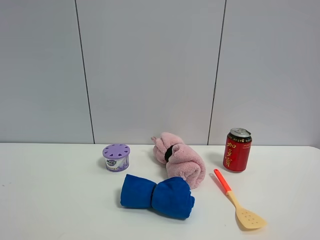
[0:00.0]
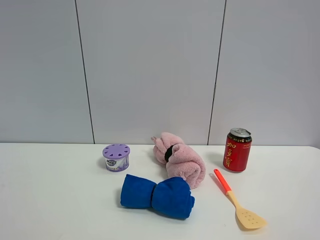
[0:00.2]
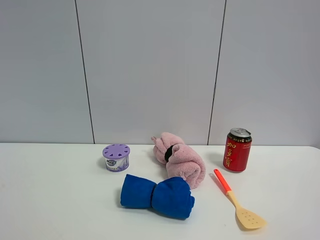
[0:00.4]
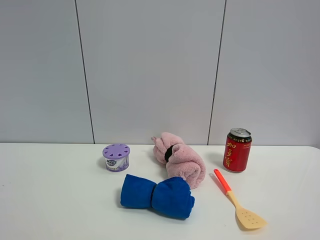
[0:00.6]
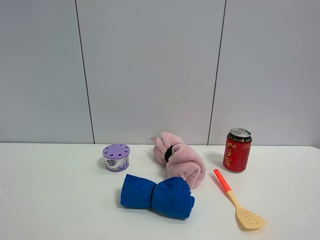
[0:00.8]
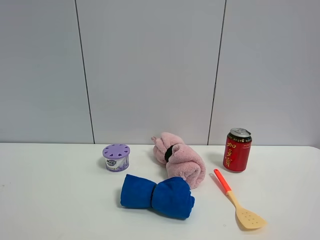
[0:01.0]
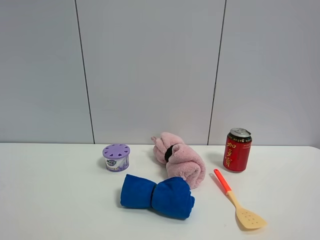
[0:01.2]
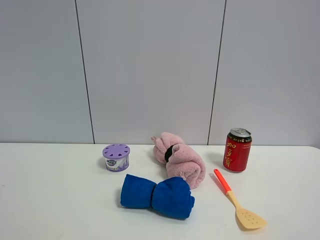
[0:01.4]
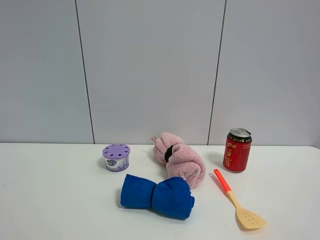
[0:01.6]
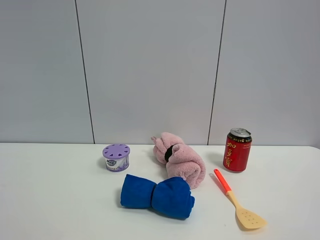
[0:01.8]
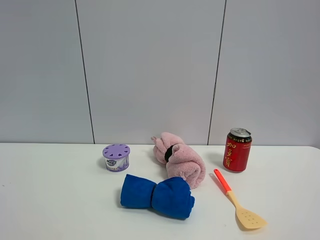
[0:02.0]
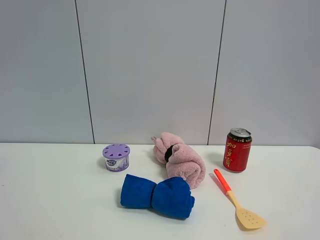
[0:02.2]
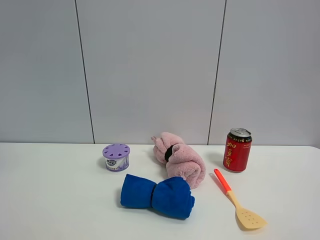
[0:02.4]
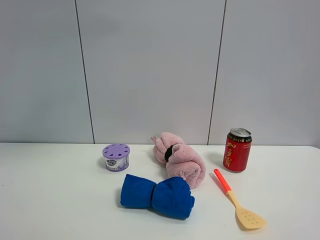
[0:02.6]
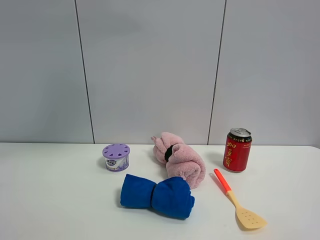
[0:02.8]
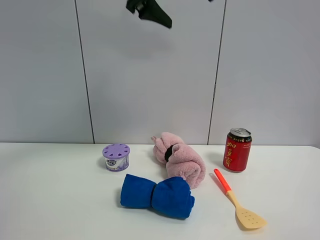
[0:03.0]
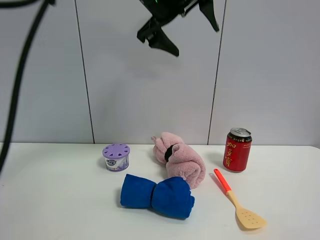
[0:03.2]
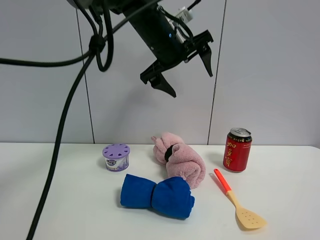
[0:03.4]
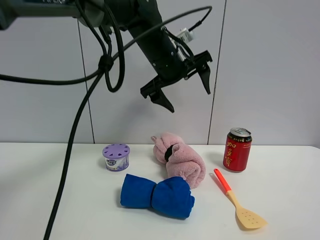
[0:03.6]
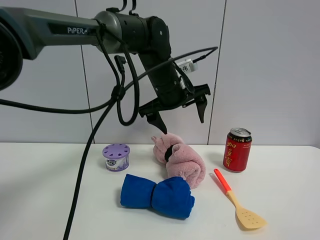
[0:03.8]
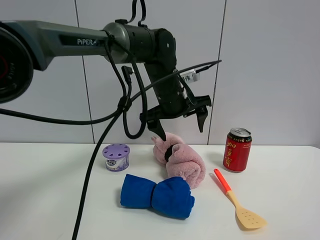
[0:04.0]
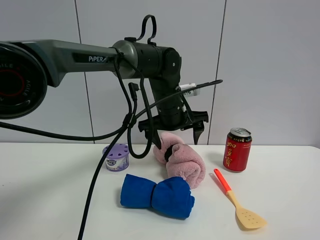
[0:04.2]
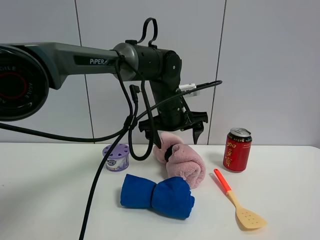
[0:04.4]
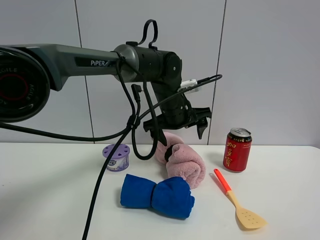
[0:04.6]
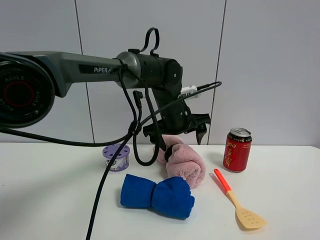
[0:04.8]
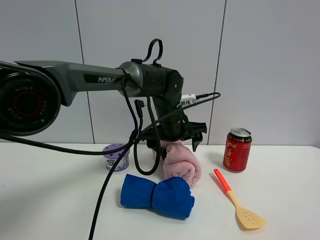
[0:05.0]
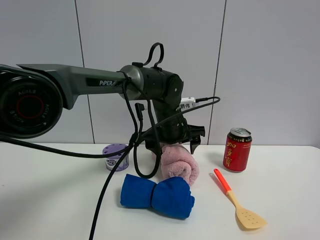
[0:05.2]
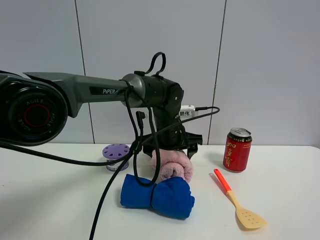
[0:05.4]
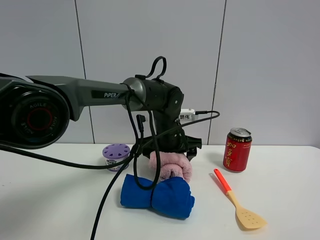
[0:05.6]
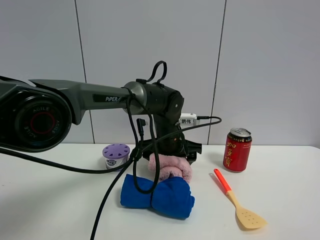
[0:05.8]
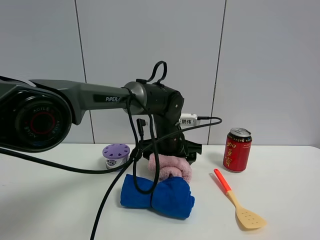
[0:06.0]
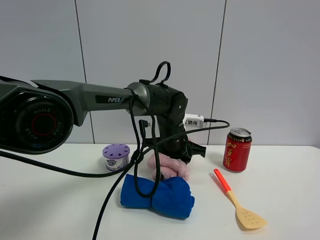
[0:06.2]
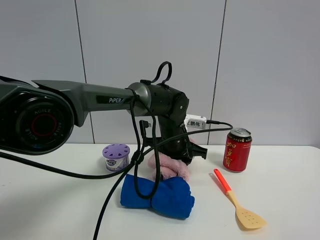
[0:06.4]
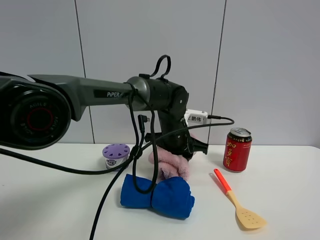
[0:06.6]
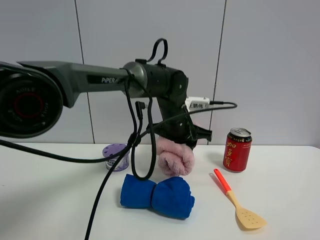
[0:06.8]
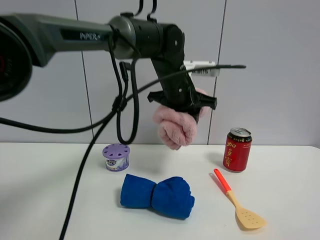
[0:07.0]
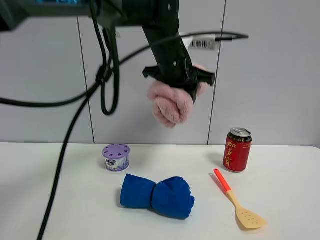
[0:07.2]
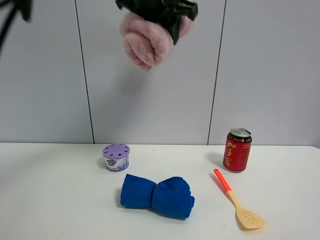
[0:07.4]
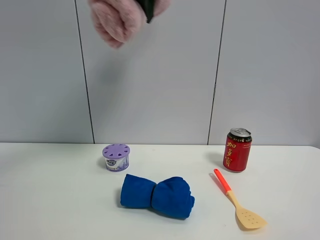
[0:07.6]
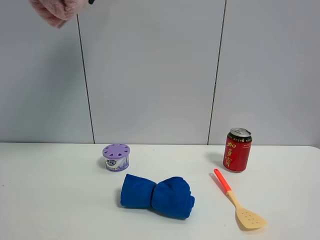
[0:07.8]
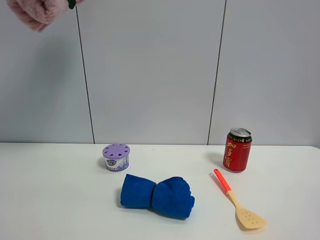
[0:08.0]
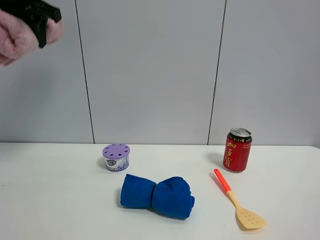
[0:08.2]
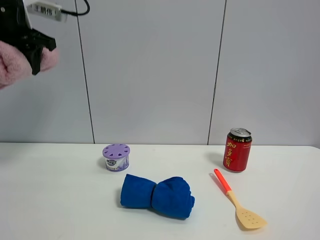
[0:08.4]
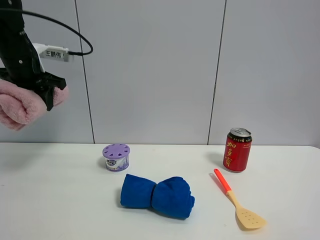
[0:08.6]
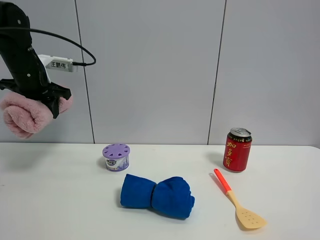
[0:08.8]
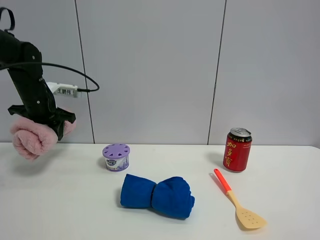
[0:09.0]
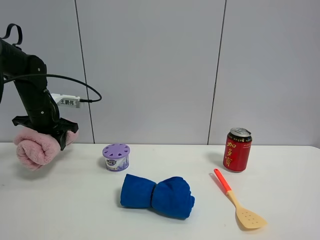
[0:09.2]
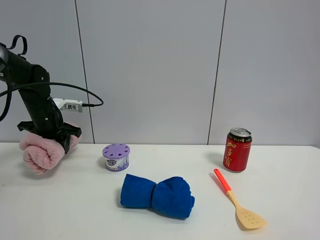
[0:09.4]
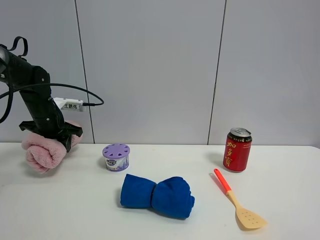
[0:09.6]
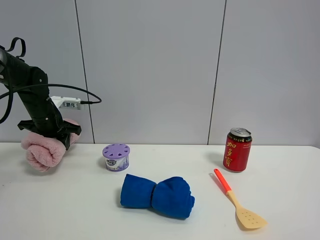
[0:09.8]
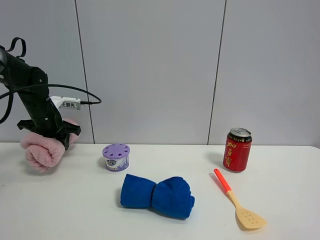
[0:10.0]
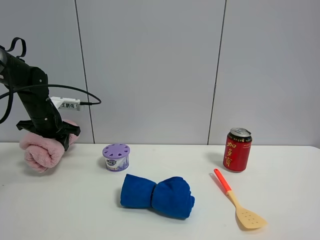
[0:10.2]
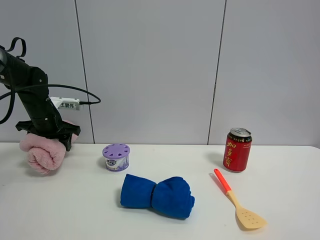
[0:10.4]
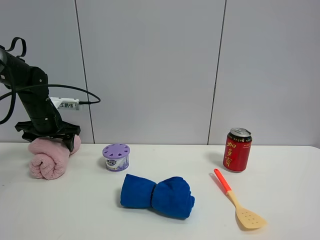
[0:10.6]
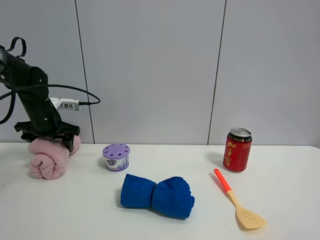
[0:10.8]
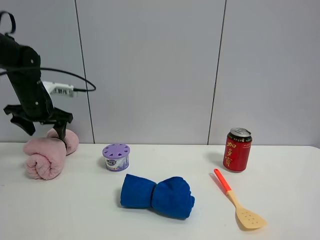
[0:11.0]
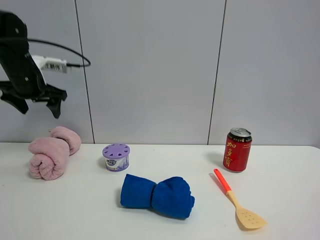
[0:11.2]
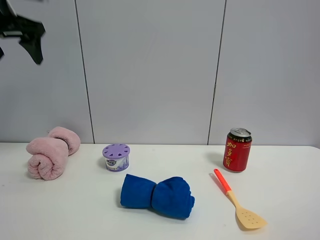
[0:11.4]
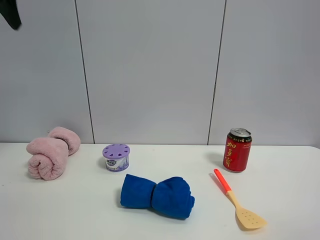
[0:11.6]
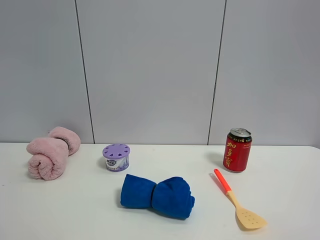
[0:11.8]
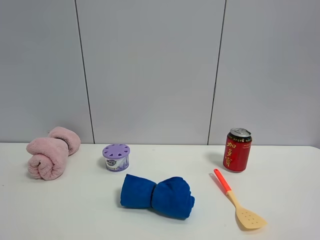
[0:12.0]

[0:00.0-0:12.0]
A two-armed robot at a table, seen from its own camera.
Task of the whole recording: the gripper move the object.
Step, 0:00.0 to 0:06.2: Grasp the pink towel with the left gripper.
Step, 0:06.4 to 0:11.0: Place the pink towel on the table with the left gripper.
0:01.6 to 0:03.0: The left gripper travels forward and to the right by roughly 50 cm.
0:03.0 to 0:04.4: The left gripper heads downward, covering some 25 cm.
0:04.4 to 0:06.0: The left gripper moves downward, approximately 5 cm.
0:06.0 to 0:07.6: The left gripper travels upward by some 35 cm, and closes its fingers.
0:07.6 to 0:09.0: The left gripper is displaced downward and to the left by some 35 cm.
0:09.0 to 0:10.4: The left gripper opens its fingers.
0:10.4 to 0:12.0: The left gripper goes approximately 50 cm upward and backward.

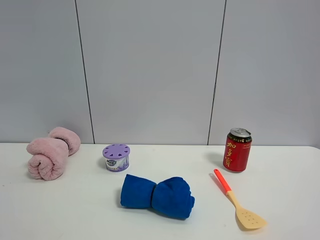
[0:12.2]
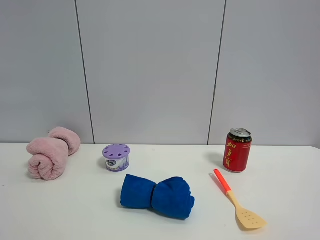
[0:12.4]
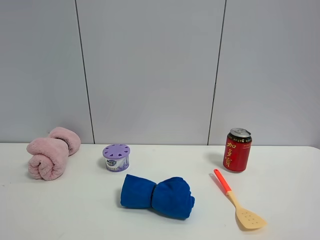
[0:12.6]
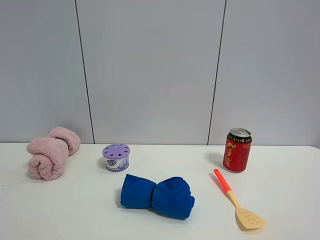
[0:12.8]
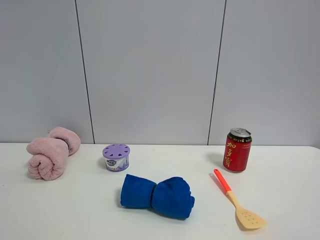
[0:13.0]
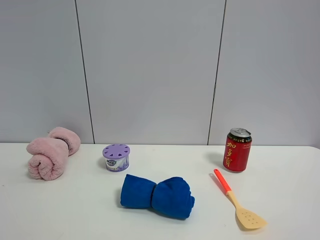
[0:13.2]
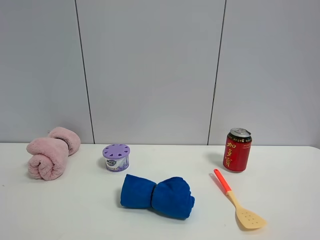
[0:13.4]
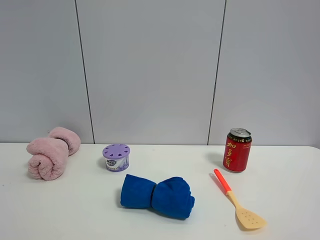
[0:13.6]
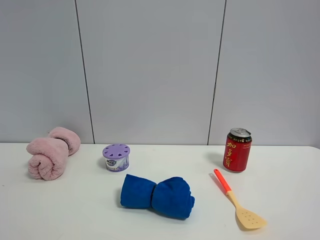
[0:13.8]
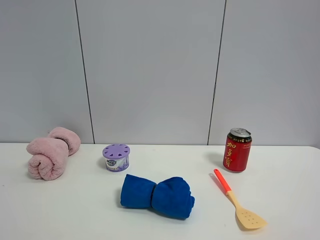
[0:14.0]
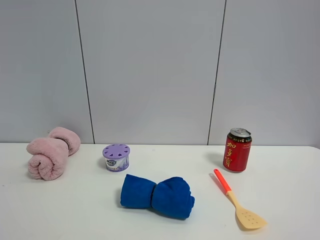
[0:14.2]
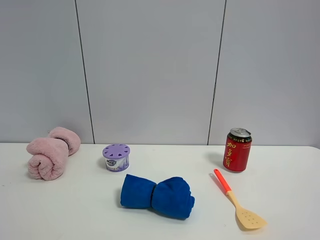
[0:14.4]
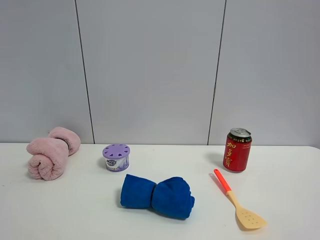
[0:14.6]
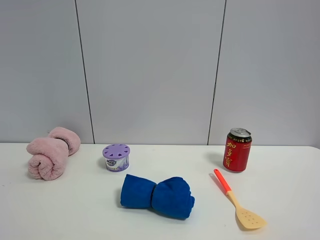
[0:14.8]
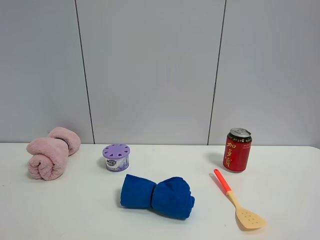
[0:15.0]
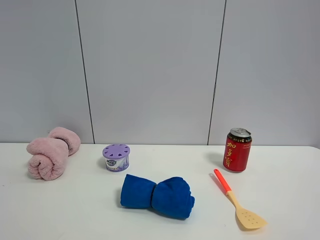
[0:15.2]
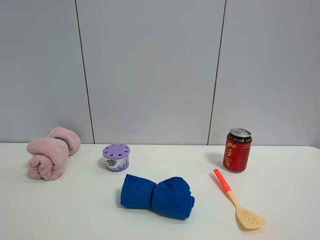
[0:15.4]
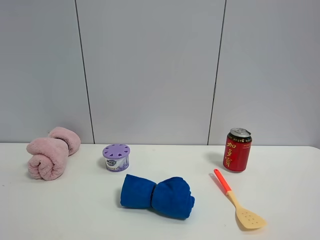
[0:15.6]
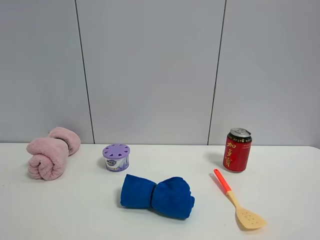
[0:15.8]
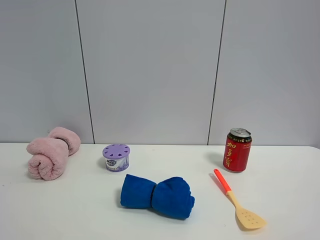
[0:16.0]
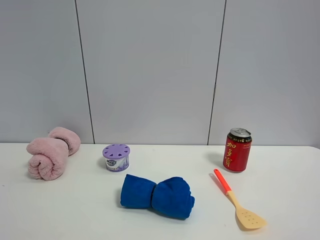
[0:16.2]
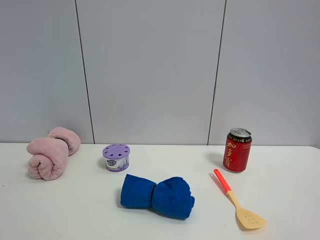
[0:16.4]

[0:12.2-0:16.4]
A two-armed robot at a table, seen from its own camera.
Task of the whole recording: the gripper move the object.
0:13.6 to 0:16.4: Both grippers stay put.

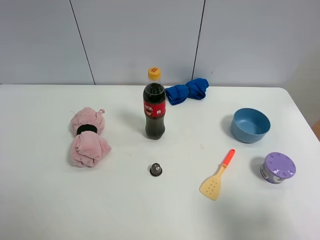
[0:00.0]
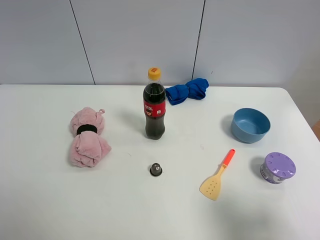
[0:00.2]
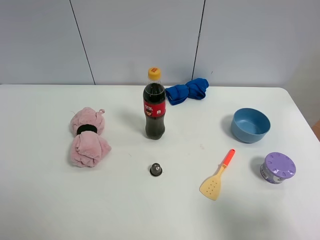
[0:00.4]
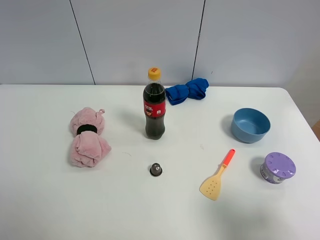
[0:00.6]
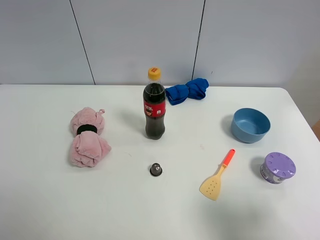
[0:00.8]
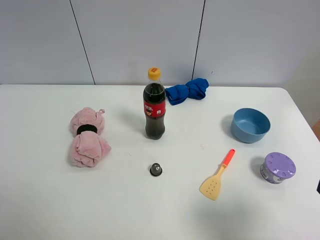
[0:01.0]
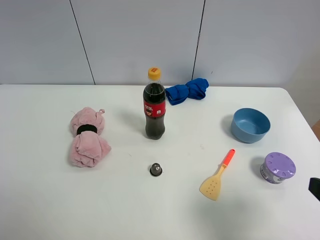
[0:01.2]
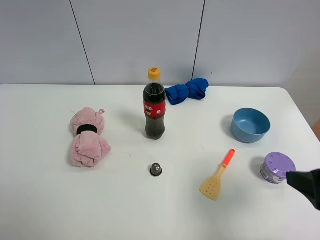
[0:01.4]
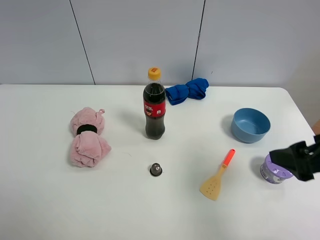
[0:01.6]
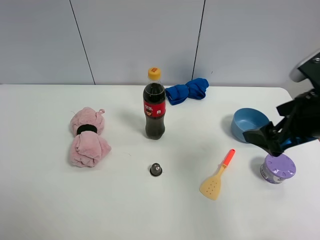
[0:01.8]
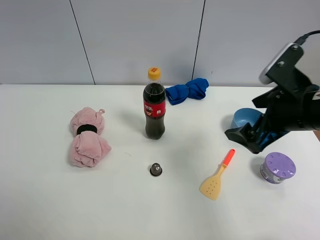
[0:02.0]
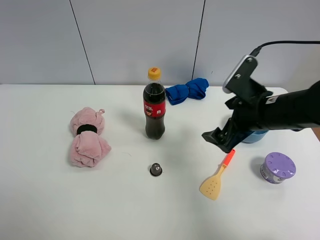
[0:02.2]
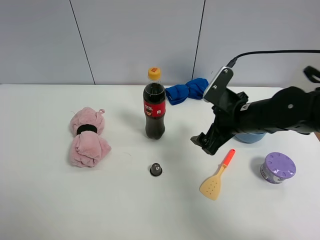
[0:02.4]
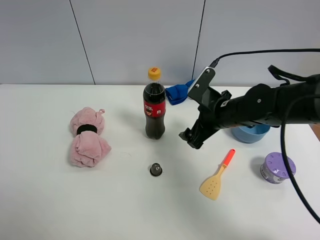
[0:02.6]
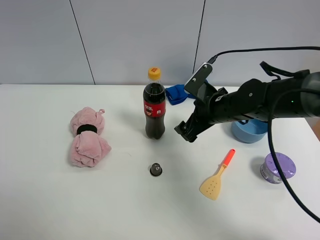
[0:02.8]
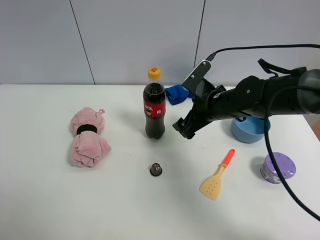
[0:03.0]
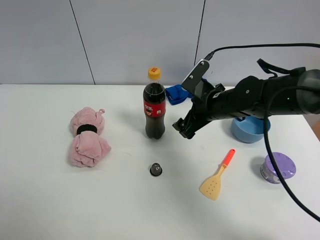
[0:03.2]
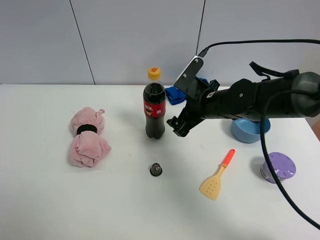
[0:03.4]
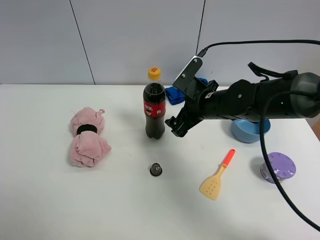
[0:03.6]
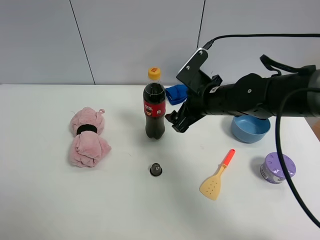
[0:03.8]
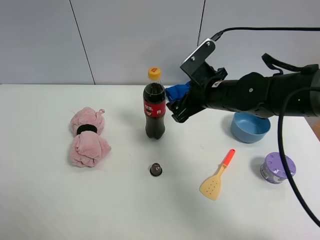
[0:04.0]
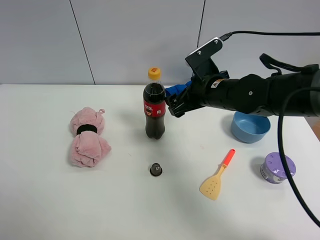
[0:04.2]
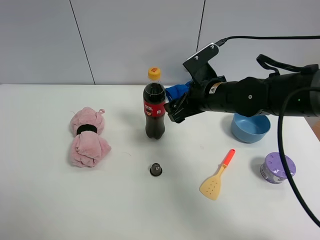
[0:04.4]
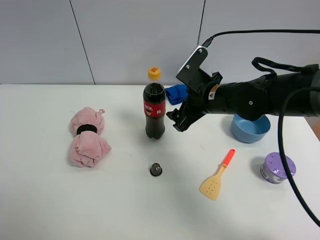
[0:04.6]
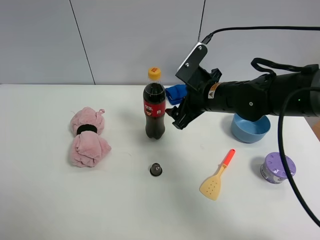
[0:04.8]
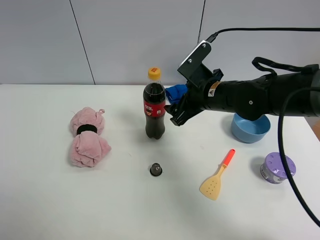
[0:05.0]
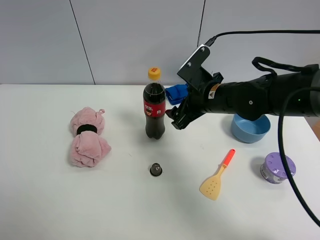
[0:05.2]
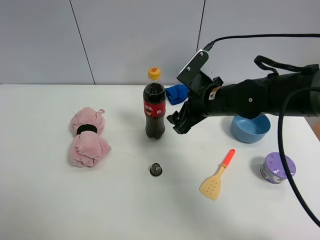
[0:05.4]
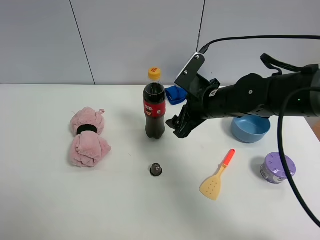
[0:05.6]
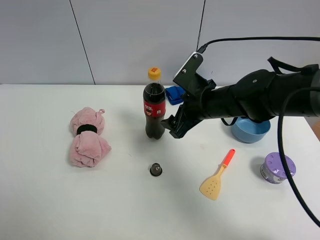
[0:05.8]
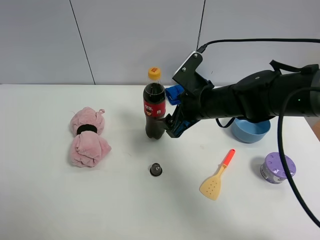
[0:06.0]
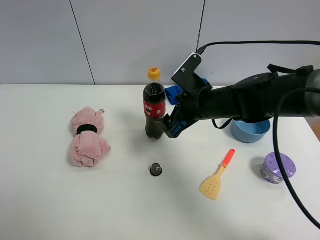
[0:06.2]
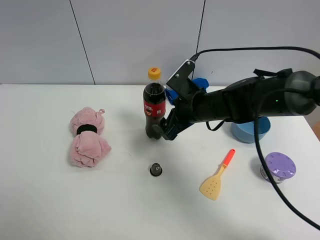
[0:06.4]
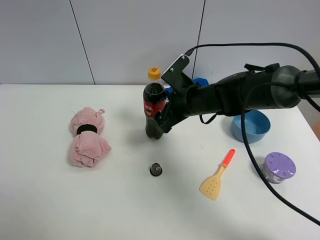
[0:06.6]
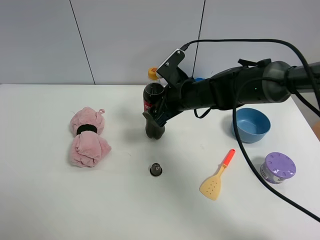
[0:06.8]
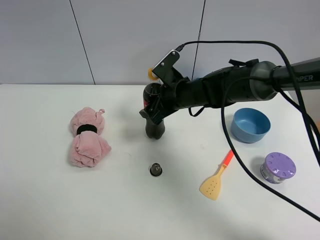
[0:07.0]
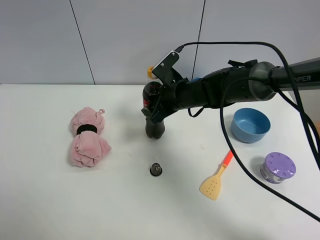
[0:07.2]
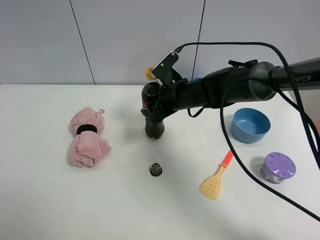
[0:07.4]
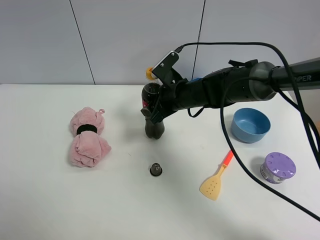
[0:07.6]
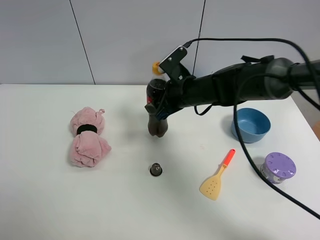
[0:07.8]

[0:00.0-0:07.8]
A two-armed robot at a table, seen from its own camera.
Task of the whole recording: the gripper move the object.
Step, 0:00.0 to 0:07.2: Grasp the coke with the right gripper.
0:00.0 to 0:01.6: The right gripper moves forward, some 15 cm.
0:01.6 to 0:03.2: The right gripper shifts some 25 cm forward, to the left and downward.
0:03.2 to 0:06.2: There are only small adjustments of the grippers.
0:06.2 to 0:07.8: The right gripper closes its fingers.
